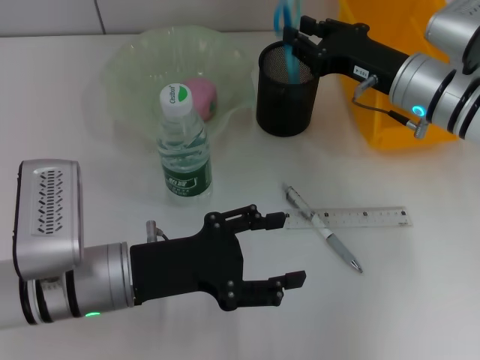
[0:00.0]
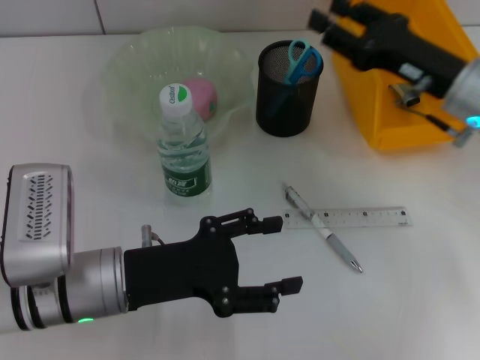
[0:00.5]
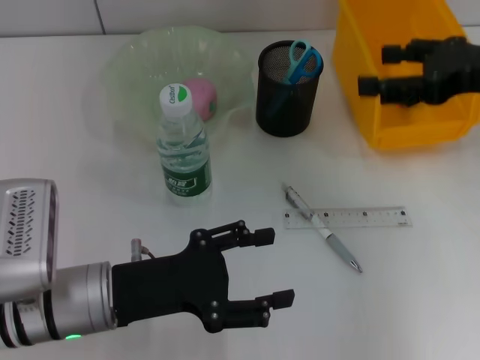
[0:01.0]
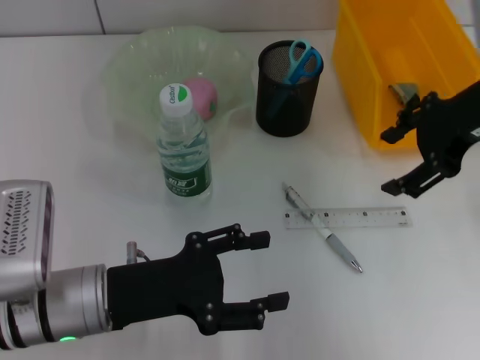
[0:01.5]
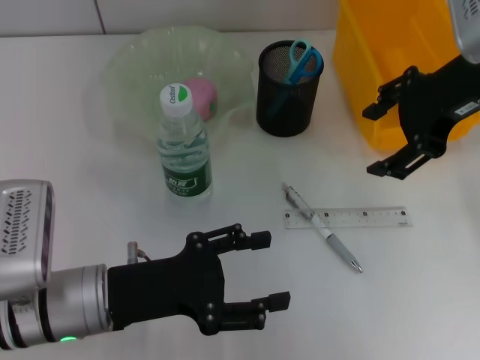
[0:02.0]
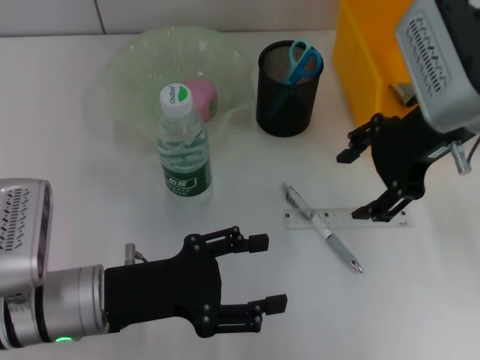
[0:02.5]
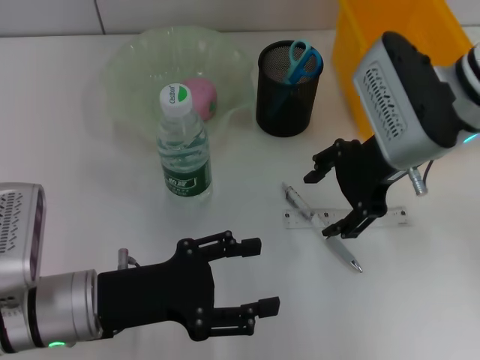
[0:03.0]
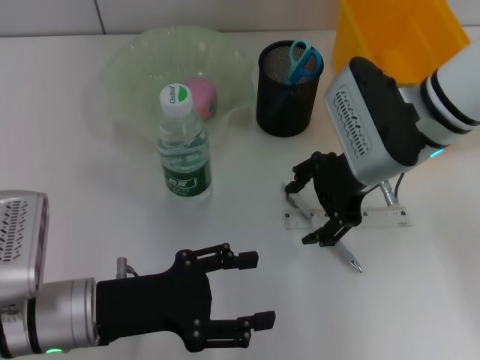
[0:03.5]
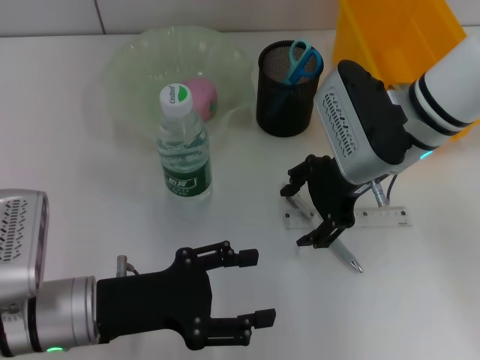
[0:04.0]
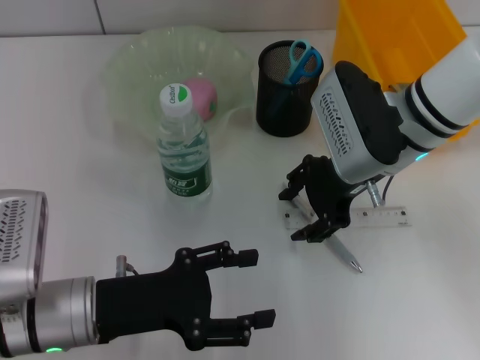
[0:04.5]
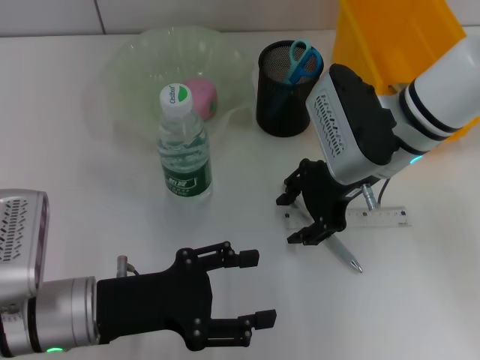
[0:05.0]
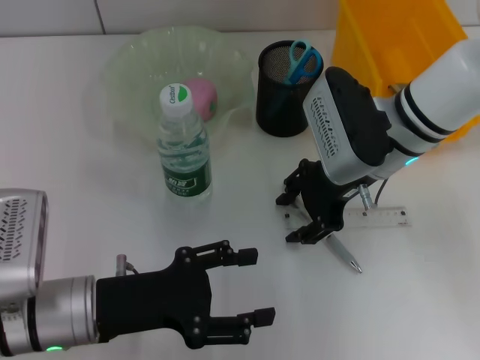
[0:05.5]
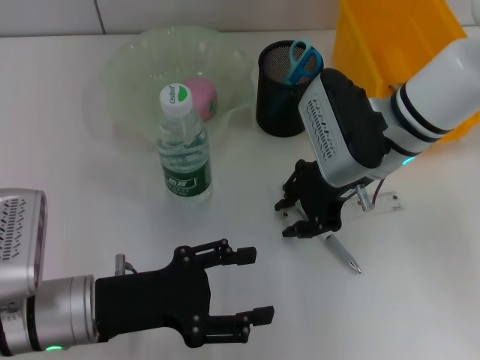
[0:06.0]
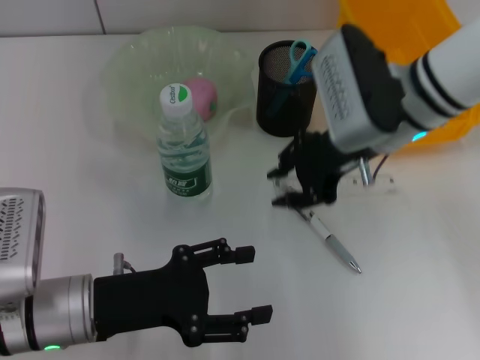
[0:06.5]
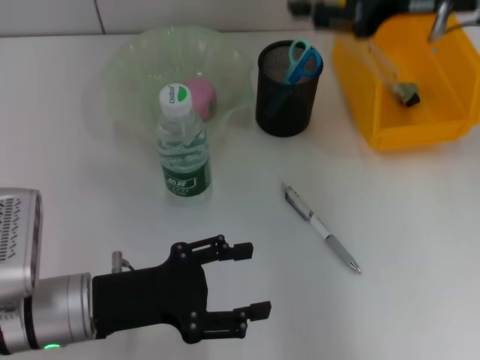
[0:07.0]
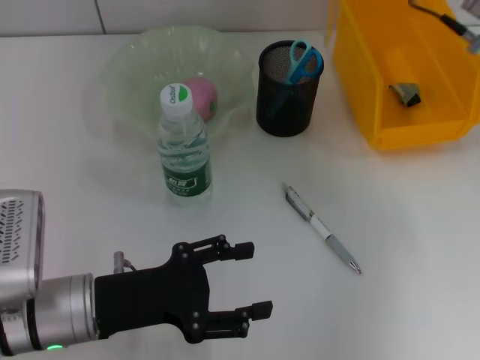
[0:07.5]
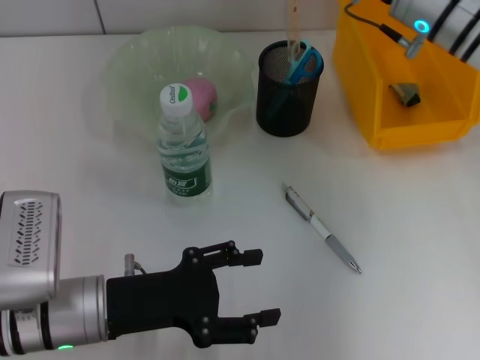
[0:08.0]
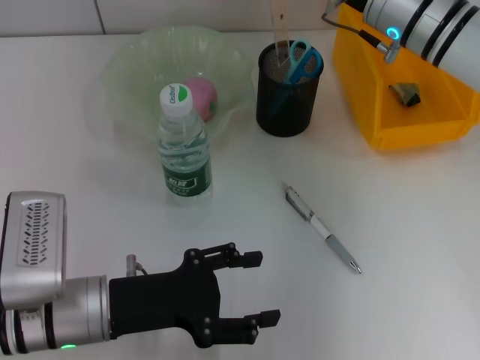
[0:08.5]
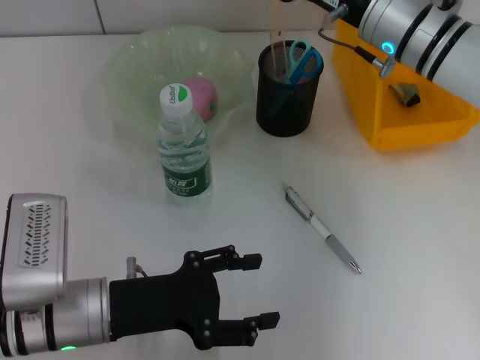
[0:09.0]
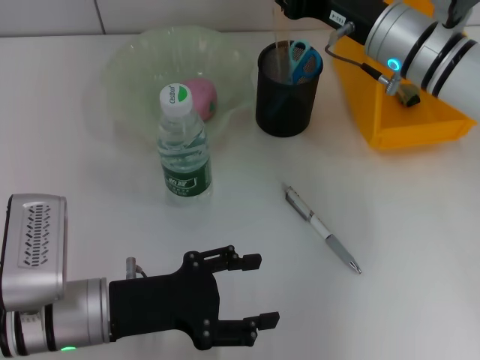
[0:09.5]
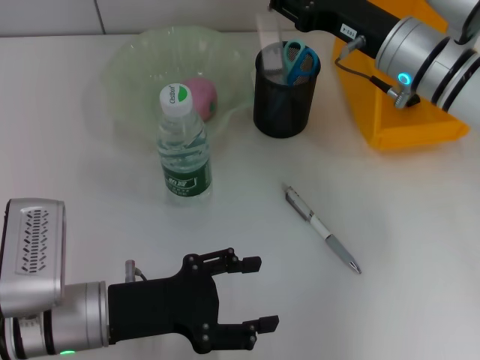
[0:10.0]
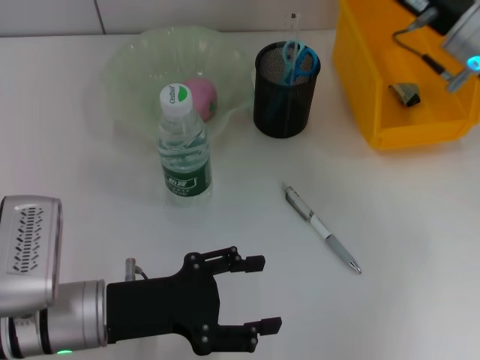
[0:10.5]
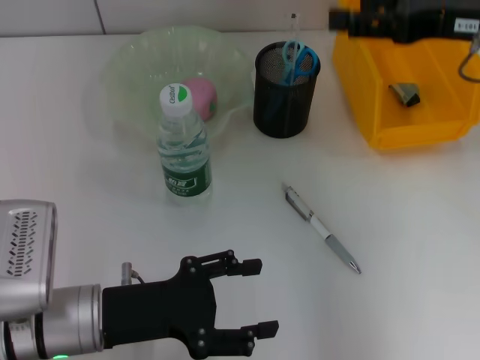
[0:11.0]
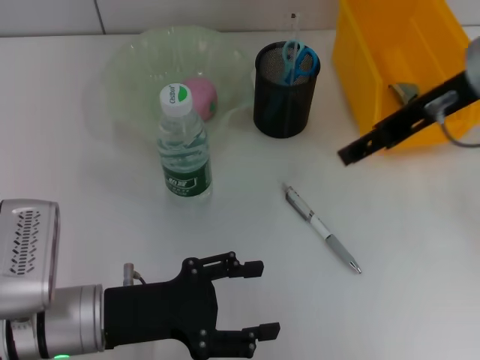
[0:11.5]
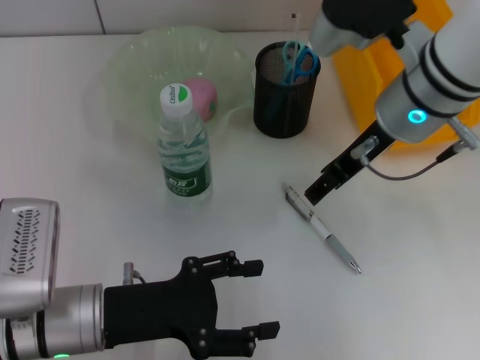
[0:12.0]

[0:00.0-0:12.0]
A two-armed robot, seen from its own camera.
Step, 0:00.5 to 0:05.5: Grab the ruler with the right hand.
Step, 0:06.0 to 0:10.0: Place the ruler into the pen holder with the right hand.
0:00.0 to 0:02.0: The right gripper moves upward, roughly 15 cm, and opens its fingers.
0:02.0 to 0:04.0: The right gripper shifts about 15 cm downward and to the left.
0:04.0 to 0:06.0: The right gripper closes.
0:06.0 to 0:08.0: The right gripper shifts roughly 5 cm forward, and moves approximately 15 cm upward and comes back.
0:08.0 to 0:10.0: The grippers stay close to where they were, moving slightly.
0:10.0 to 0:12.0: The right gripper goes roughly 5 cm upward, and opens up.

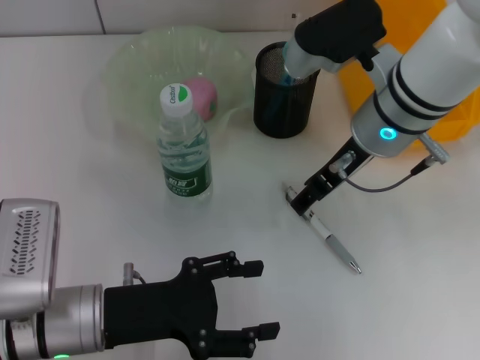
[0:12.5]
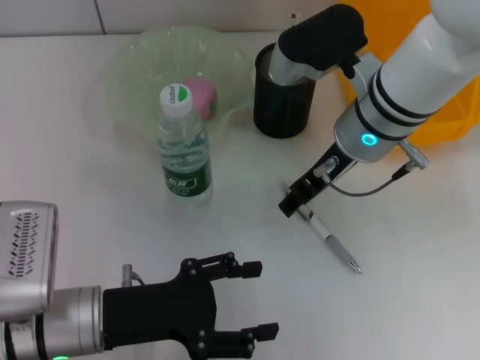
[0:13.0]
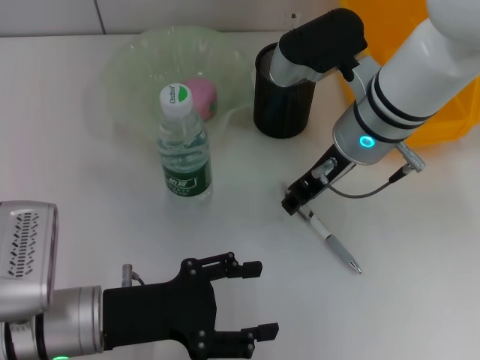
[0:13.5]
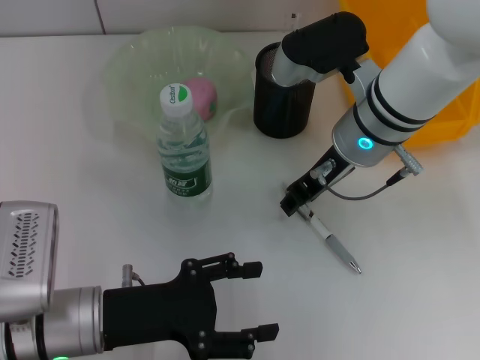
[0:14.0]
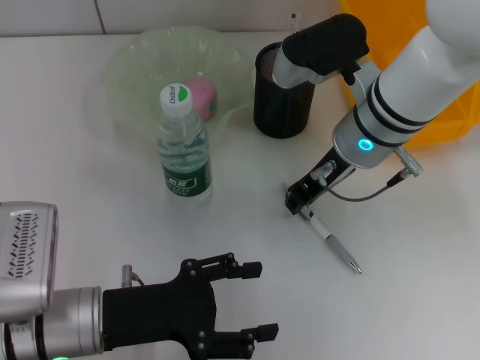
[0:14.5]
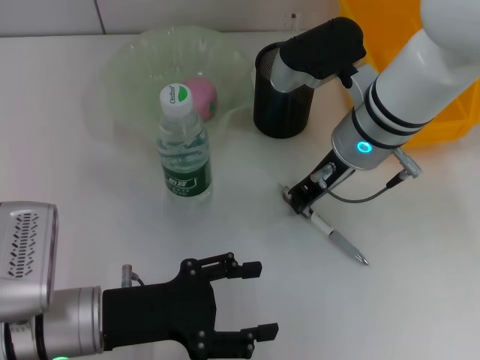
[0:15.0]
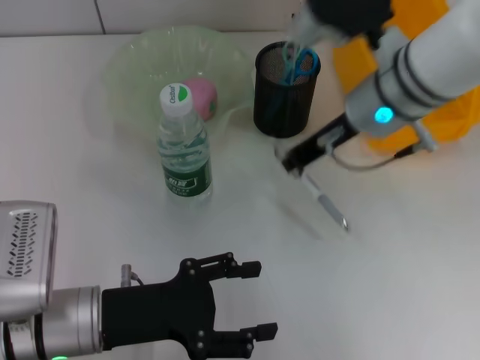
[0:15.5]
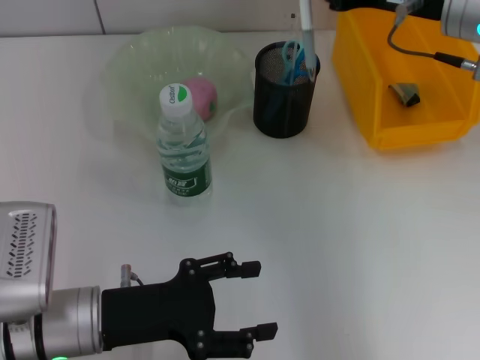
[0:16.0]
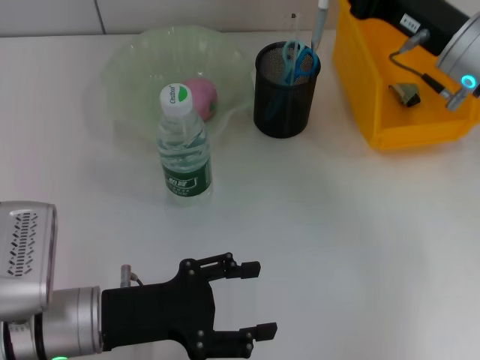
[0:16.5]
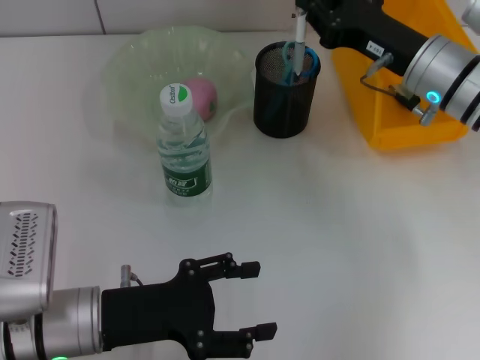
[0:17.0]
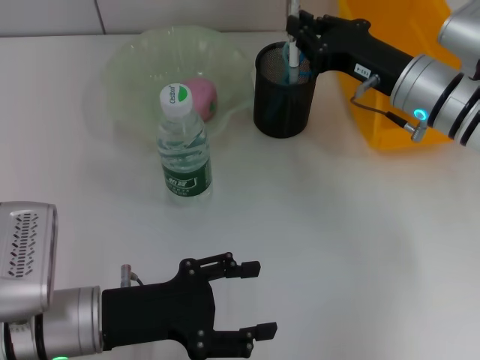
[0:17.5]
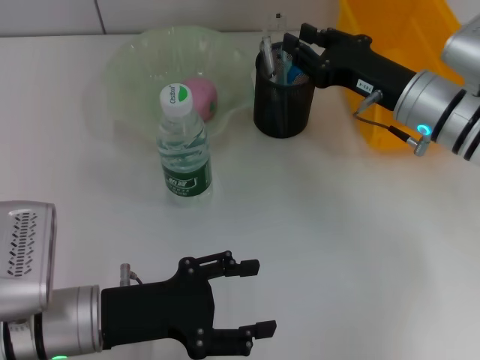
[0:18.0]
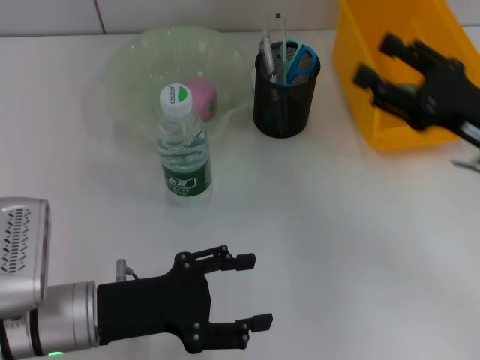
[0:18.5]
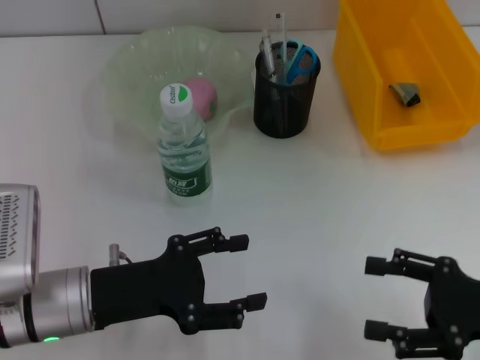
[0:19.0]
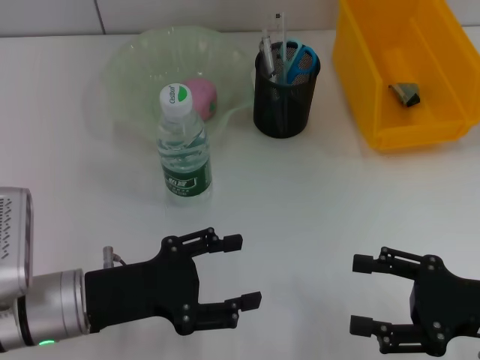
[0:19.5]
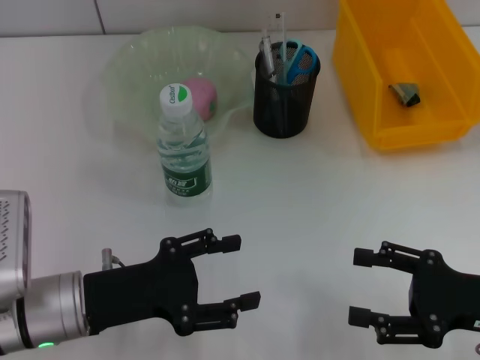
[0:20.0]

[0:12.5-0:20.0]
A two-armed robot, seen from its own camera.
Step, 0:12.5 to 0:15.0: Grab the gray spring-action pen with the right hand.
Step, 0:15.5 to 0:17.5: Place the gray spring-action pen into the pen holder with the right hand.
0:12.5 to 0:14.5: The right gripper closes its fingers.
0:14.5 to 0:16.5: The right gripper heads to the right, covering roughly 10 cm.
0:16.5 to 0:18.0: The right gripper changes place by approximately 5 cm.
0:18.0 to 0:20.0: The right gripper travels backward and to the right by approximately 20 cm, and opens.

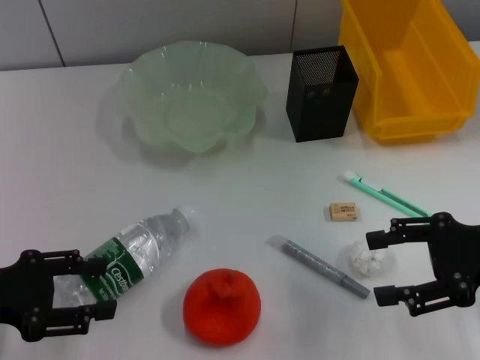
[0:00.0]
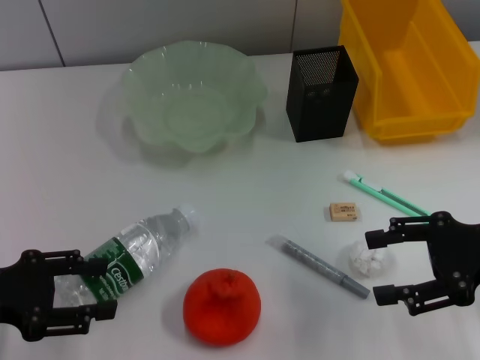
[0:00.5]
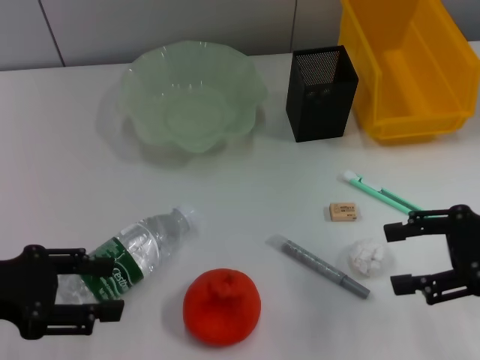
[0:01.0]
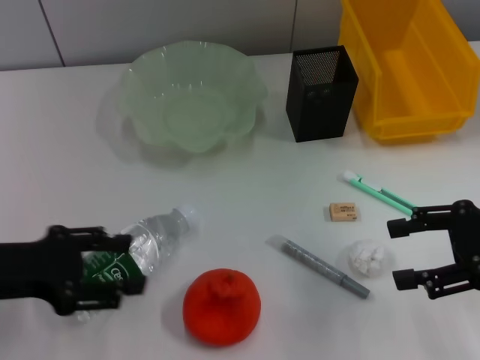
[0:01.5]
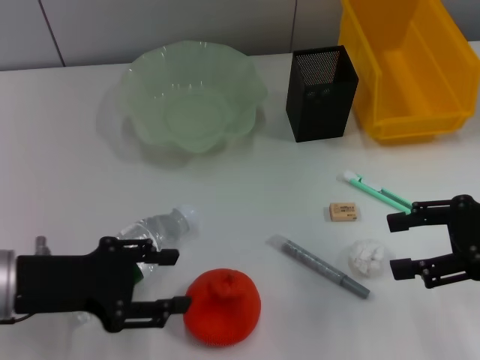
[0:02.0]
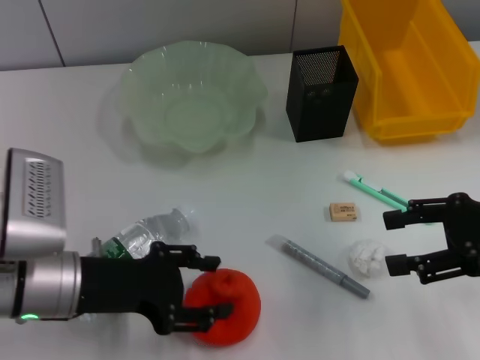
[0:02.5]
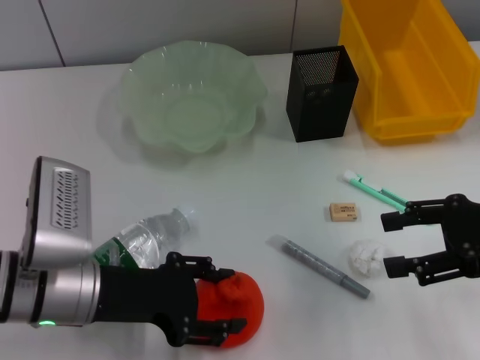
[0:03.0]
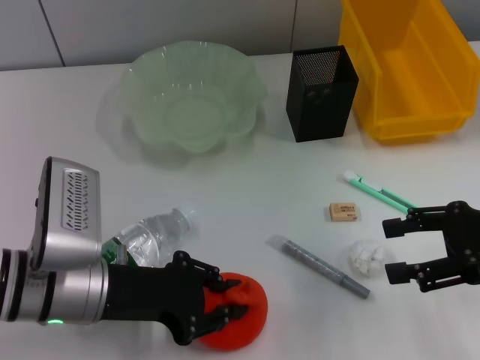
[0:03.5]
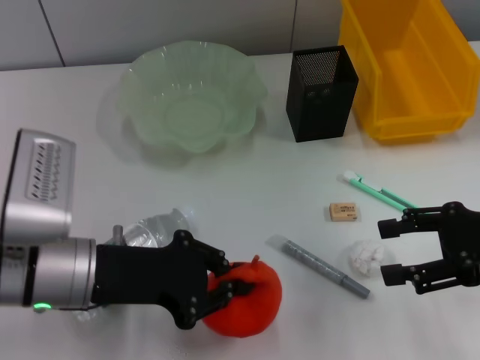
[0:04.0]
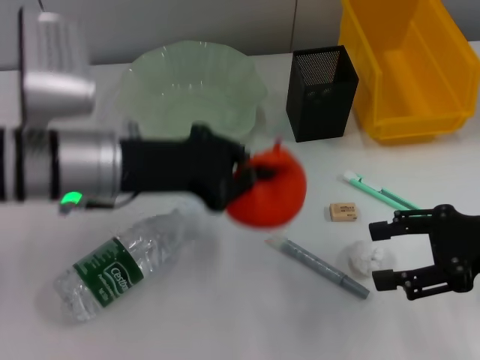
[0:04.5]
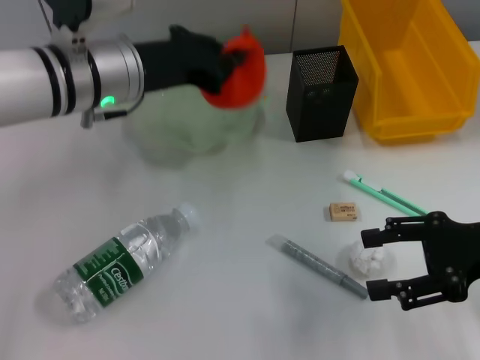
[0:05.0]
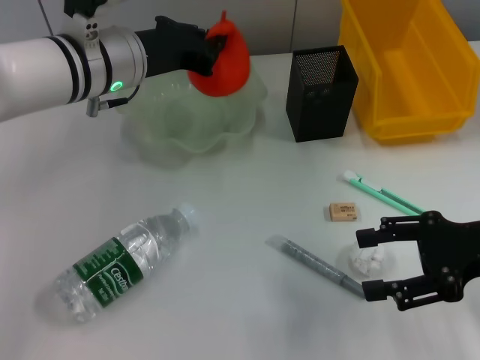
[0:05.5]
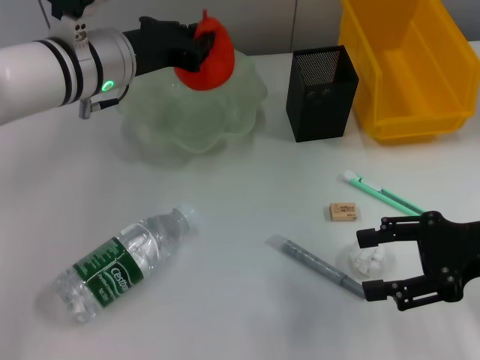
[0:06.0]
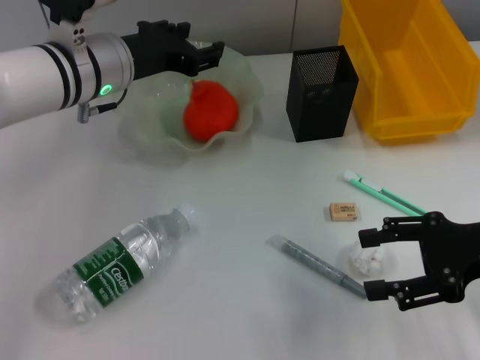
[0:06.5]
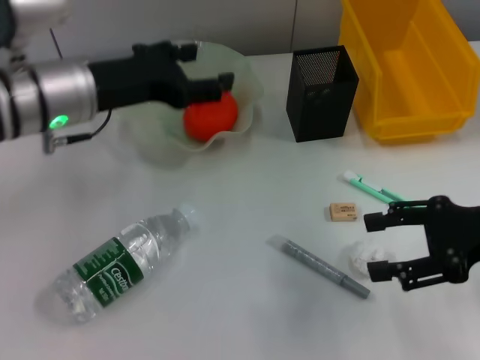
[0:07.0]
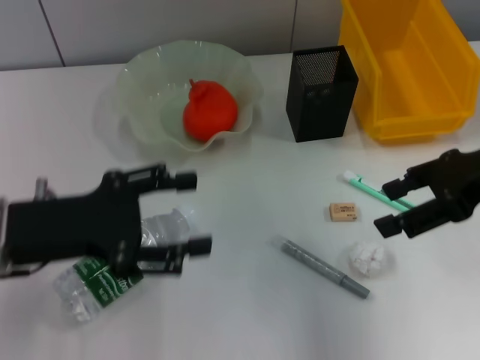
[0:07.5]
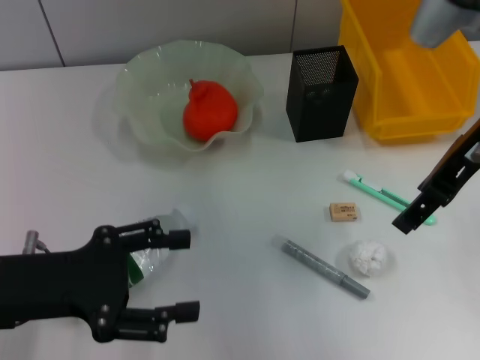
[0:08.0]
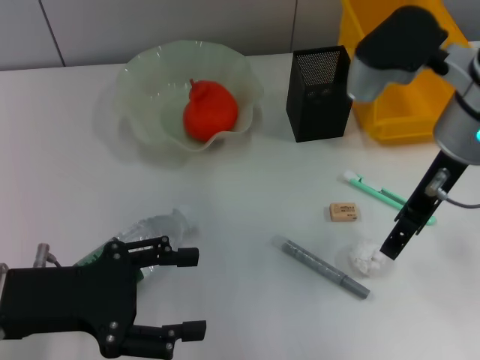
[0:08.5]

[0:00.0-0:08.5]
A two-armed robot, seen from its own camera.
Step, 0:00.0 to 0:03.5: Grab the orange with the left hand.
Step, 0:04.0 to 0:06.0: Place the orange into the fruit bowl with the left hand.
0:00.0 to 0:02.0: The left gripper goes roughly 5 cm to the right.
0:02.0 to 0:04.0: The left gripper shifts some 5 cm to the right, and closes up.
0:04.0 to 0:06.5: The left gripper travels forward by roughly 15 cm, and opens up.
0:06.5 to 0:08.5: The right gripper is displaced to the left, upward and forward by approximately 15 cm. The left gripper moves backward and to the left, approximately 20 cm, and opens its fingers.
